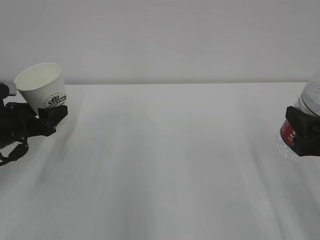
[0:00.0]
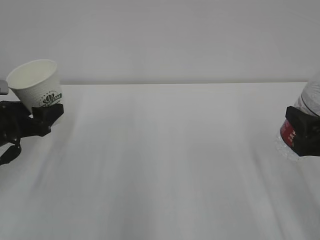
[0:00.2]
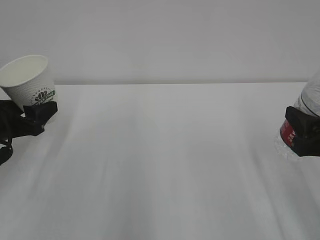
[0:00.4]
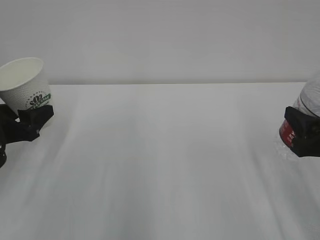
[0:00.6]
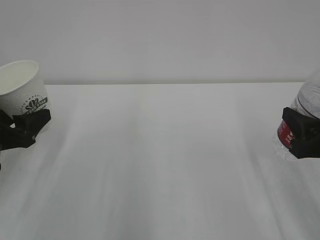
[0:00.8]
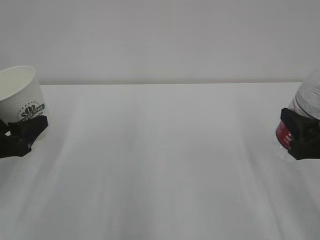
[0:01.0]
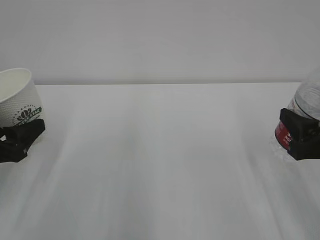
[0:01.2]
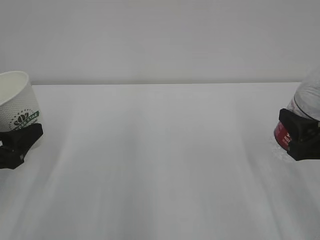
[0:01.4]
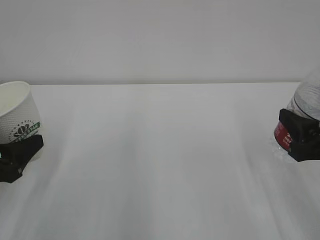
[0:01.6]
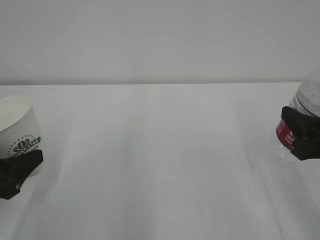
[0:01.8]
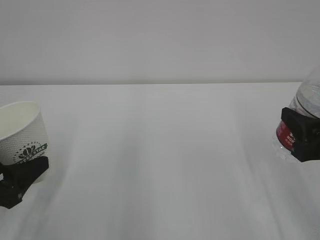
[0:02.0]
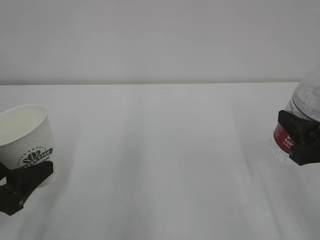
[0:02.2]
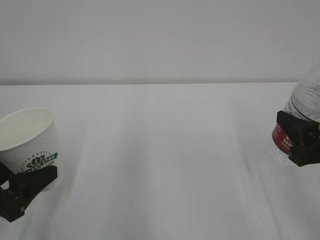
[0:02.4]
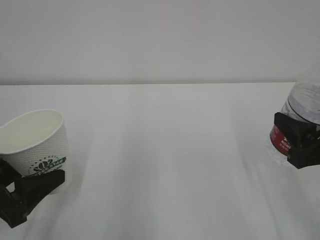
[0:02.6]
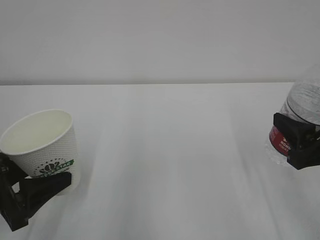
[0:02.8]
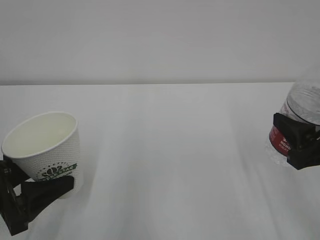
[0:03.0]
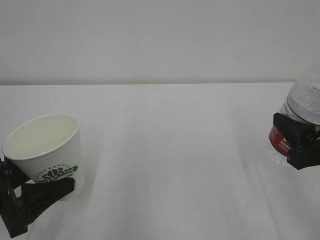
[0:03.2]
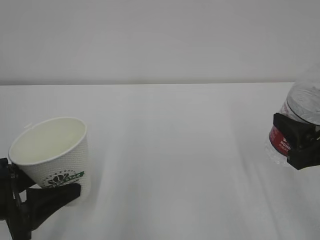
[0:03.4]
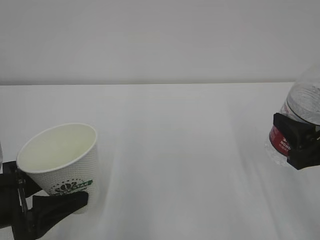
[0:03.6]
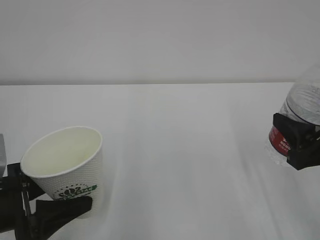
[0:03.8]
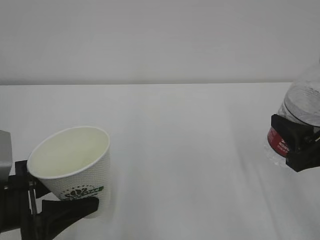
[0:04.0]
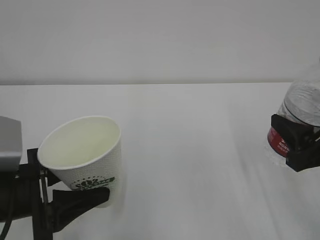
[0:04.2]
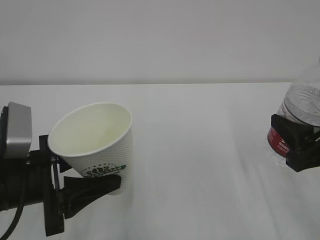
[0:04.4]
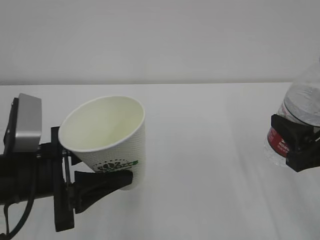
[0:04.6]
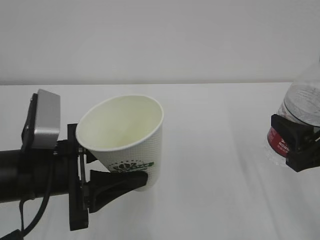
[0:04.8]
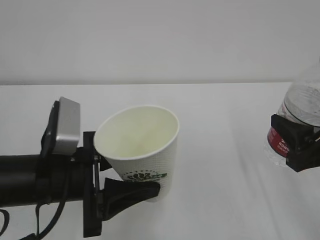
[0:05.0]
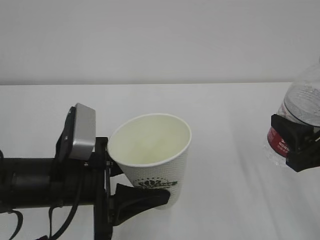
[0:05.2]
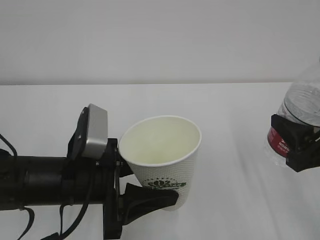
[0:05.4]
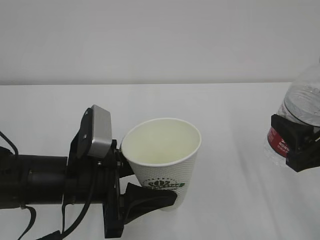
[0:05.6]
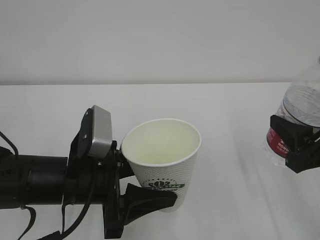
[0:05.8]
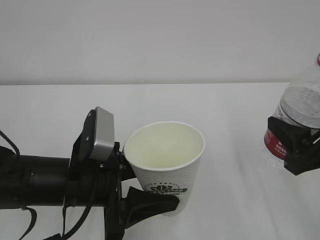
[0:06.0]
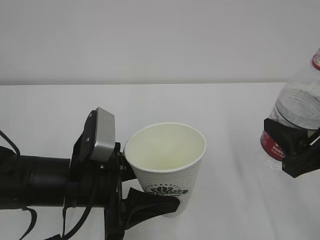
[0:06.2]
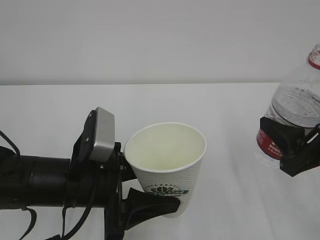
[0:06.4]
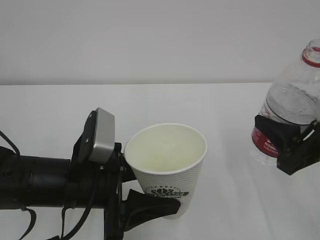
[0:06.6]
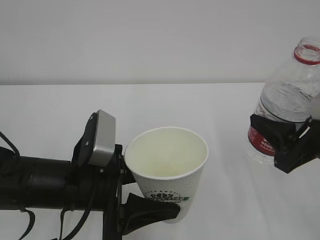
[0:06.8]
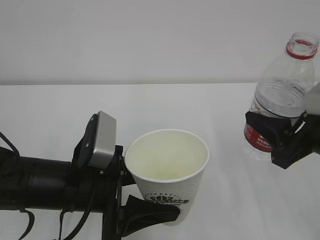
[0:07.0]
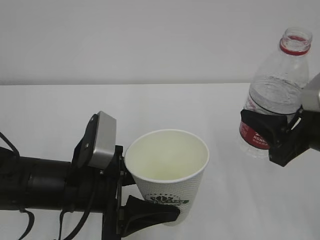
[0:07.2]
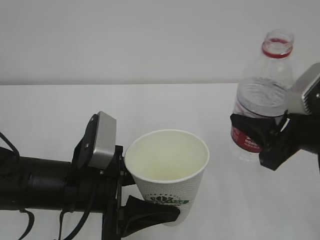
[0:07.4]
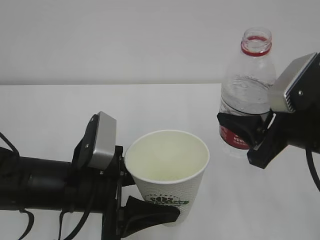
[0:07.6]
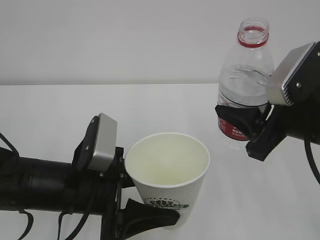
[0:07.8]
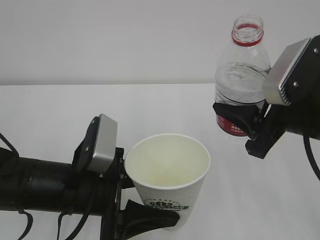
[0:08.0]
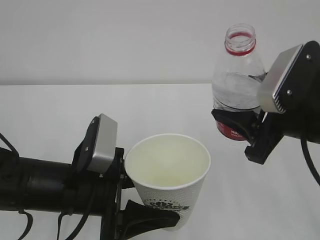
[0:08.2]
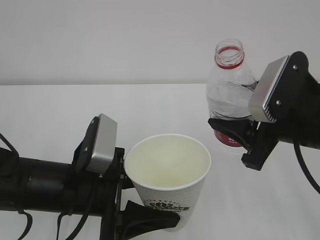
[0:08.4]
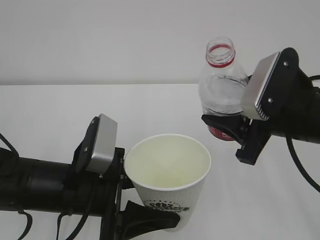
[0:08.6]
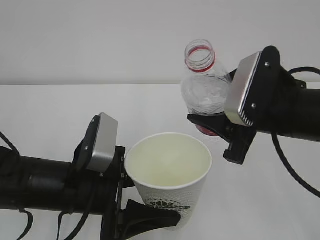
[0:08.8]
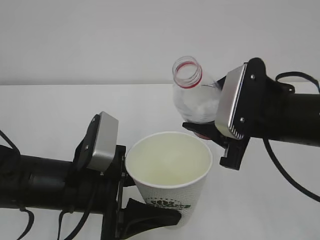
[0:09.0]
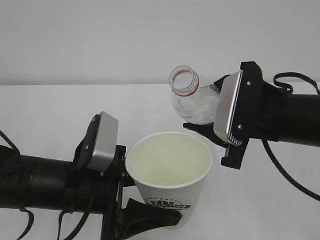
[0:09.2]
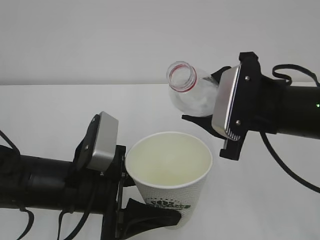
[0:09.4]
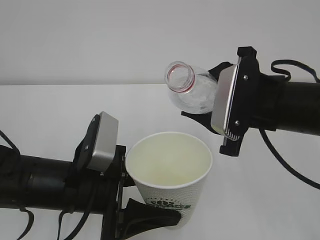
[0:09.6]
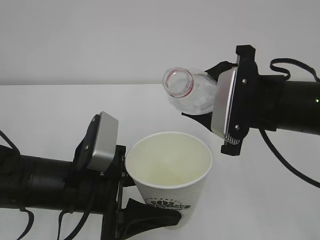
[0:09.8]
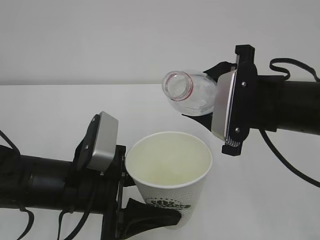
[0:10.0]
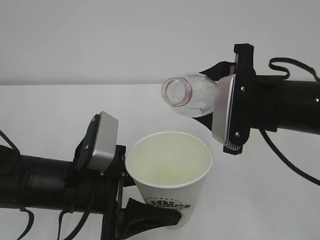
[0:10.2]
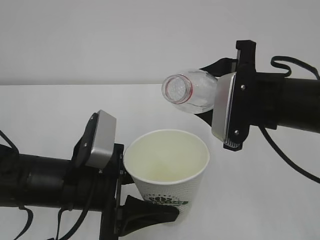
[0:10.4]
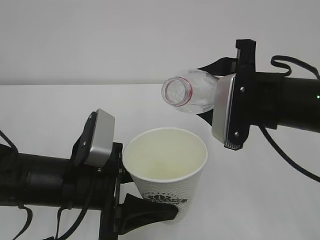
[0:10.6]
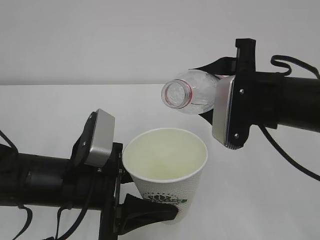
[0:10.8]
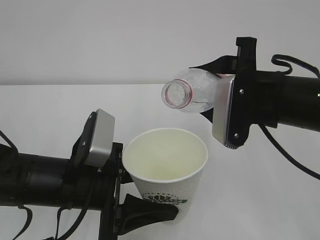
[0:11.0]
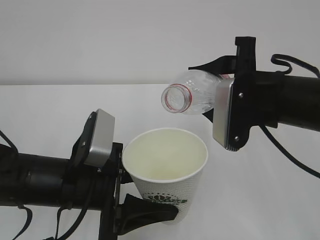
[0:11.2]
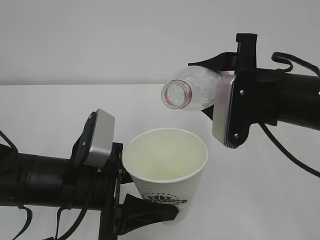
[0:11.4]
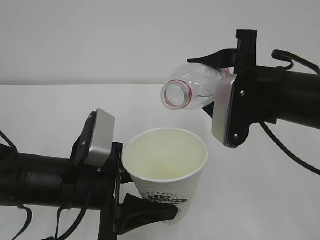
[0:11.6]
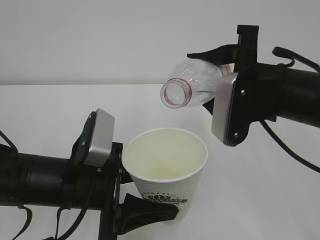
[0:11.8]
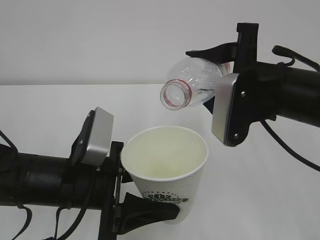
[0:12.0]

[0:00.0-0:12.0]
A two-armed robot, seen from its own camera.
0:00.0 to 0:01.6: The left gripper moves backward, some 10 cm.
0:03.0 to 0:04.4: The left gripper heads to the right, covering some 5 cm.
0:04.4 to 0:06.0: The left gripper travels to the right by about 10 cm.
0:06.0 to 0:07.6: The right gripper travels to the left by about 5 cm.
0:07.6 to 0:09.0: The right gripper moves roughly 5 cm.
0:10.4 to 0:12.0: The grippers stay close to where they were, moving slightly.

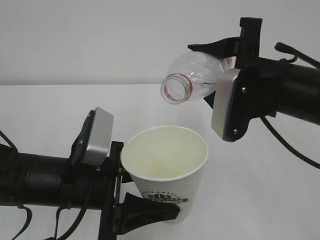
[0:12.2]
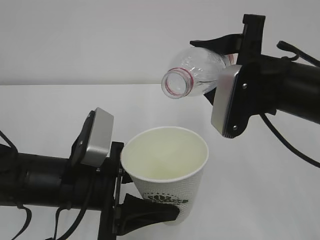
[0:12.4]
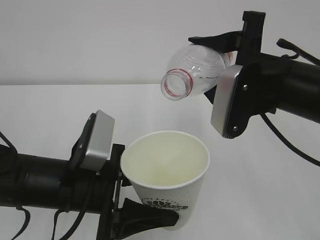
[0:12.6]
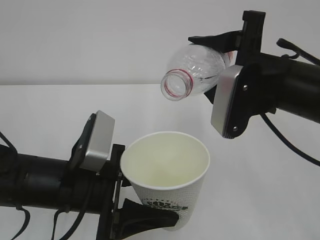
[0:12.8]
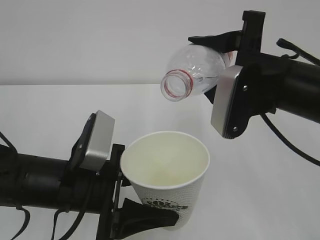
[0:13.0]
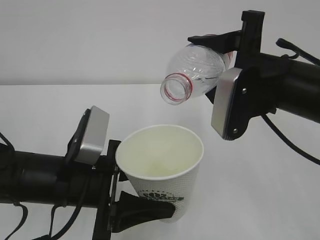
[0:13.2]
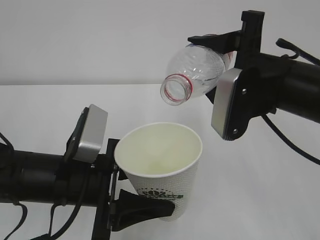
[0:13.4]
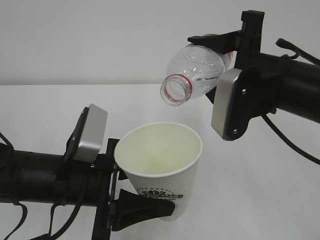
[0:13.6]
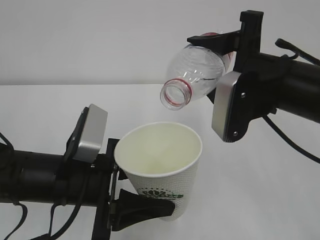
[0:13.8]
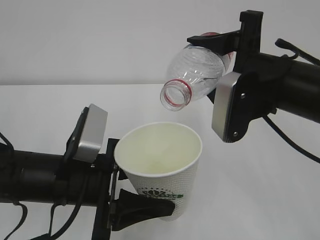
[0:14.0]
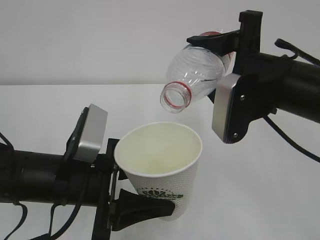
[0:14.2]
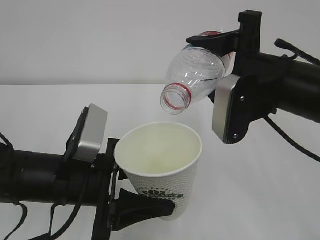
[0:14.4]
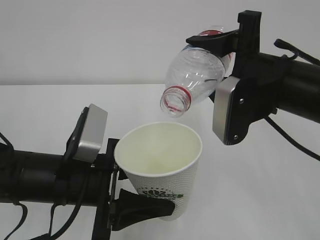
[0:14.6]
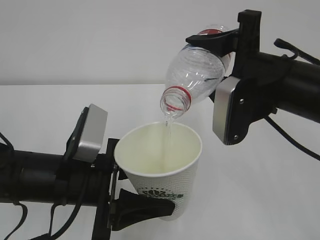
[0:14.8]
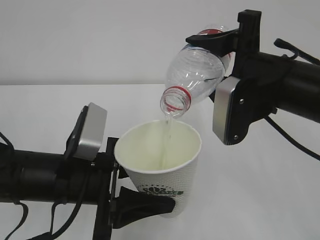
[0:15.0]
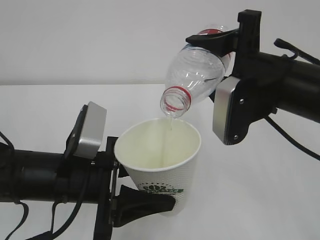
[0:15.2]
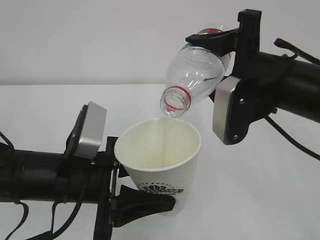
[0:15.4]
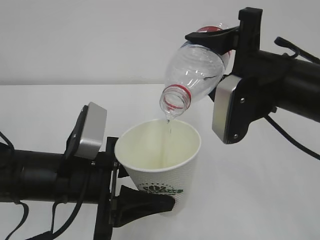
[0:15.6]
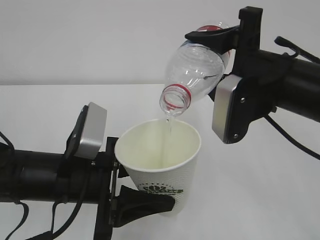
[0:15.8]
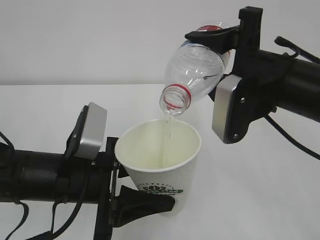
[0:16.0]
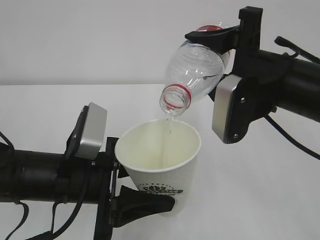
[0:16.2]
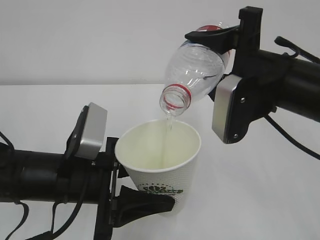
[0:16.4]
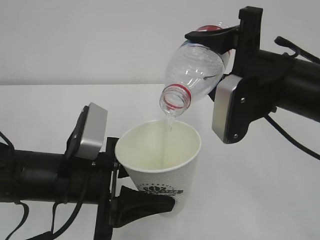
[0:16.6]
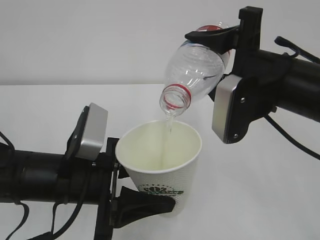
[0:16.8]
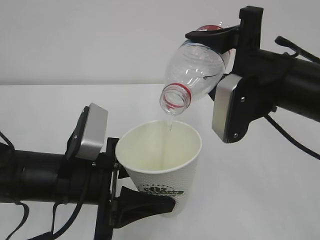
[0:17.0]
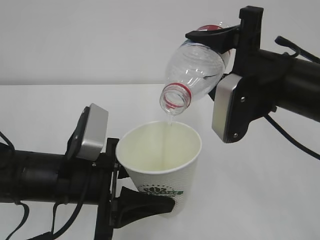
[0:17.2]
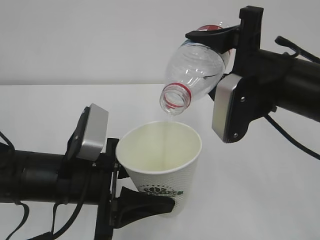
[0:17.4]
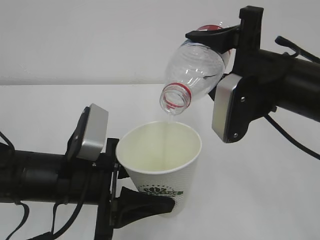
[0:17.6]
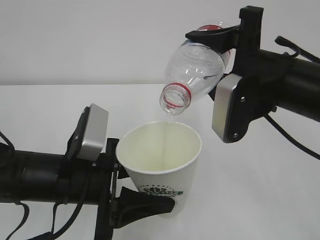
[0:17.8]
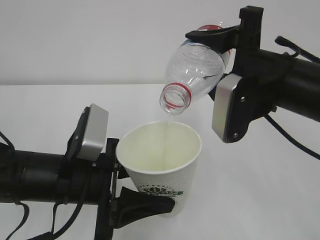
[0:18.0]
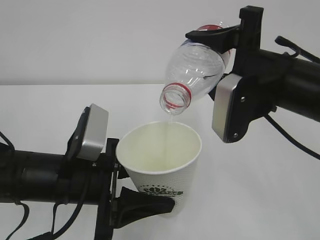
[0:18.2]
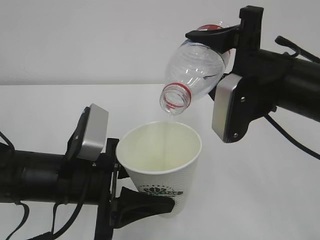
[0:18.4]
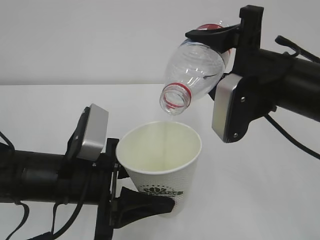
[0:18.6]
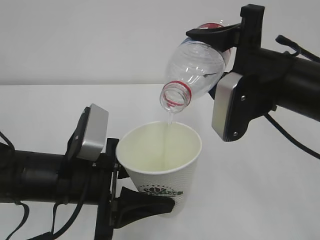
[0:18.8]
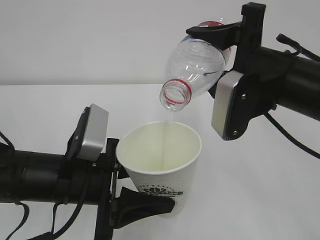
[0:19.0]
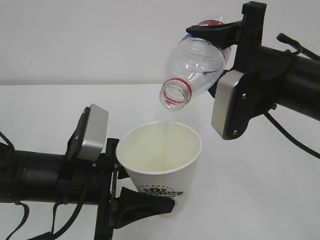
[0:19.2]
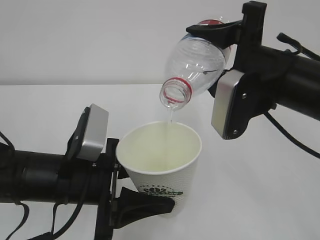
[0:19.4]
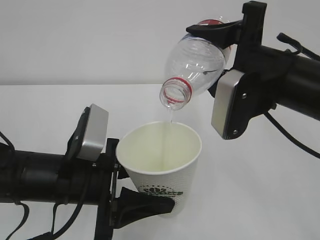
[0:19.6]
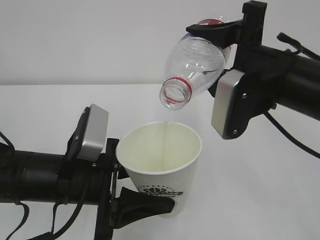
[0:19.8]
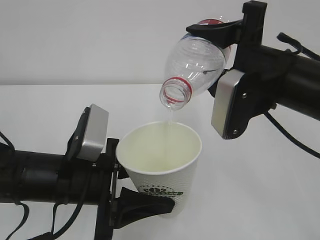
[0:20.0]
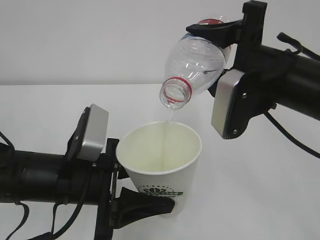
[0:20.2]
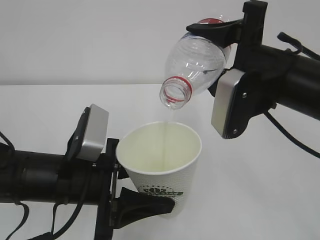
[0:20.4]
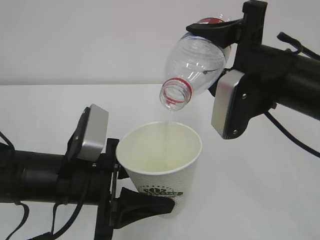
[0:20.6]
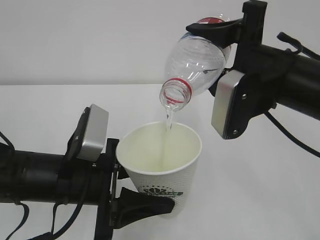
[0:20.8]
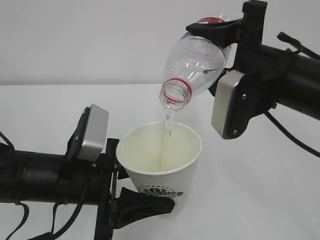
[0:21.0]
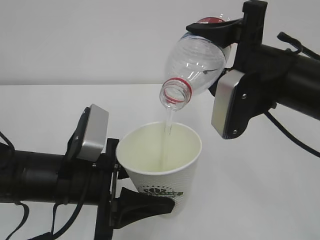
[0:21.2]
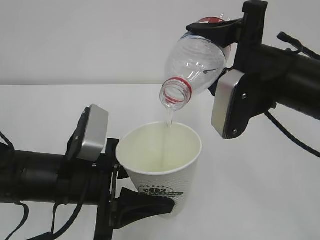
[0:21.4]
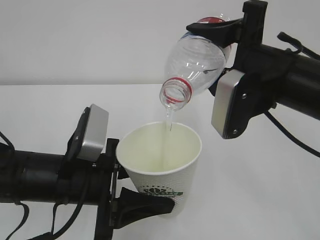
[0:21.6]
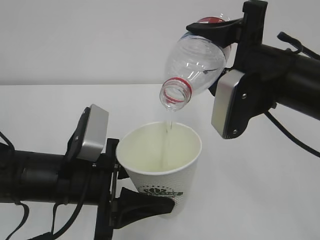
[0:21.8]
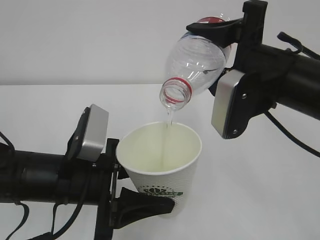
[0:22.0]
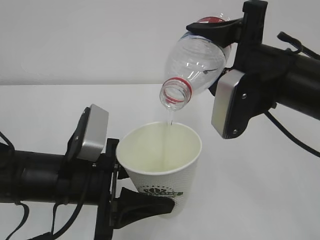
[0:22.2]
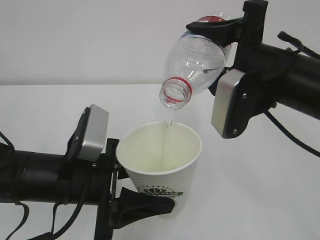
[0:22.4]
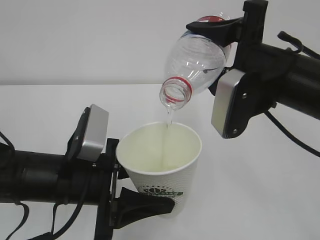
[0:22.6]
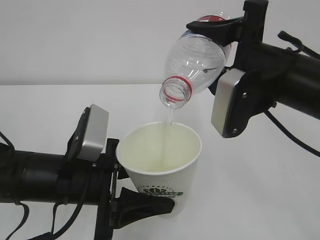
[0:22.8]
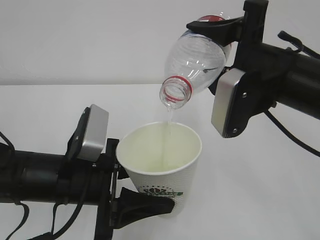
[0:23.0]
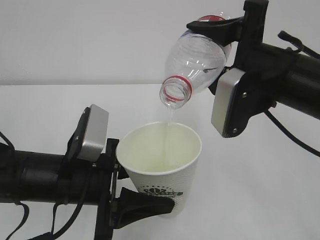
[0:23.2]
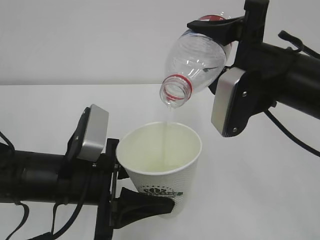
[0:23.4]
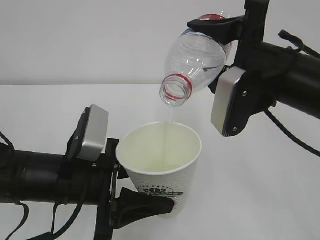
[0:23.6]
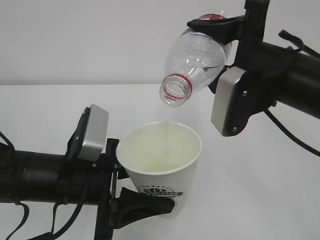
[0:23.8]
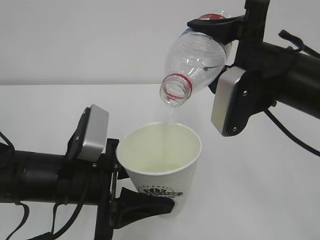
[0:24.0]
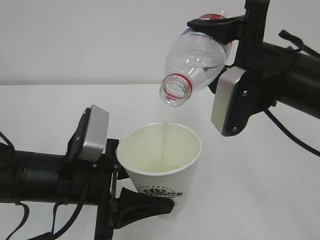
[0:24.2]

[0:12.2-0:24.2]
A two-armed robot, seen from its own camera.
0:12.2 to 0:13.8: The grippers move only a little.
0:13.8 to 0:15.2: Both grippers stay put.
0:15.2 to 0:22.6: The two grippers keep their place.
0:22.6 to 0:24.2: Both grippers stay put.
